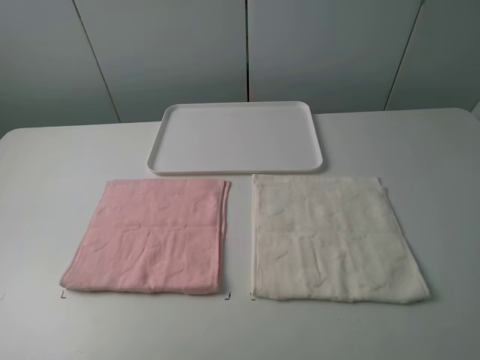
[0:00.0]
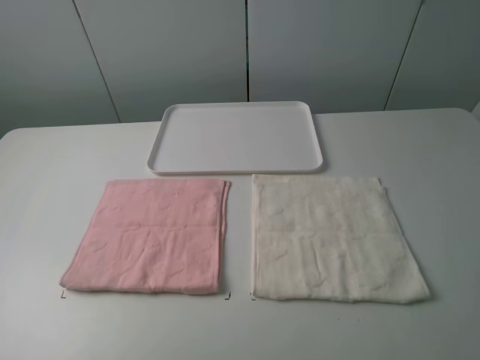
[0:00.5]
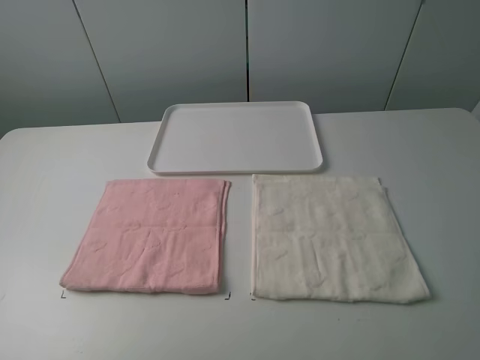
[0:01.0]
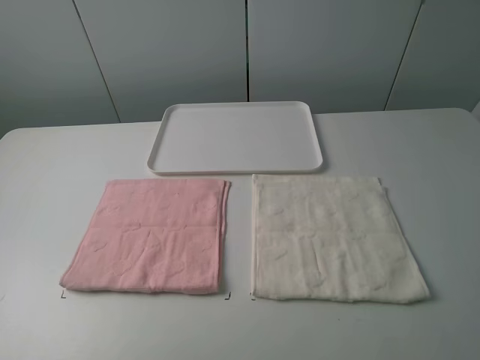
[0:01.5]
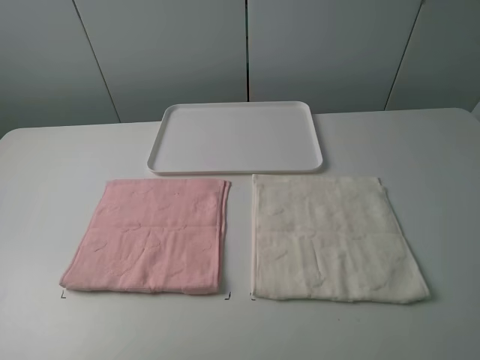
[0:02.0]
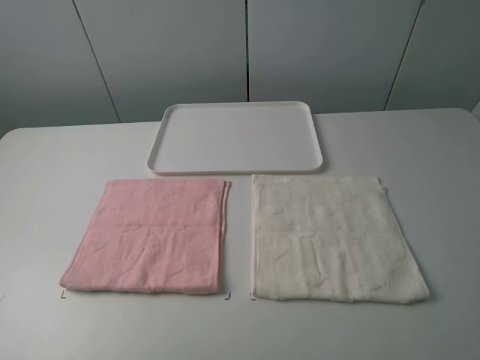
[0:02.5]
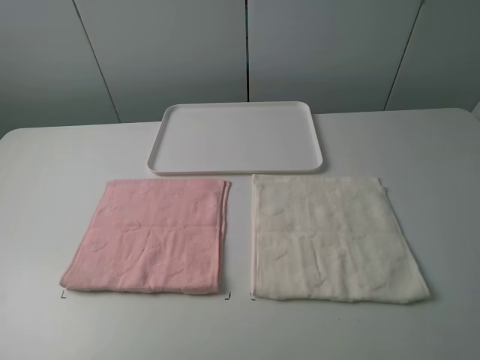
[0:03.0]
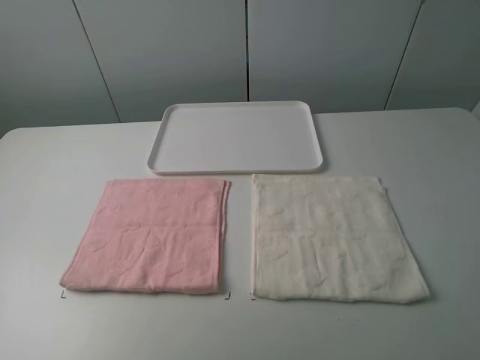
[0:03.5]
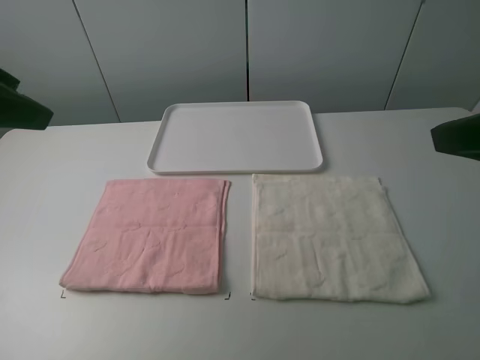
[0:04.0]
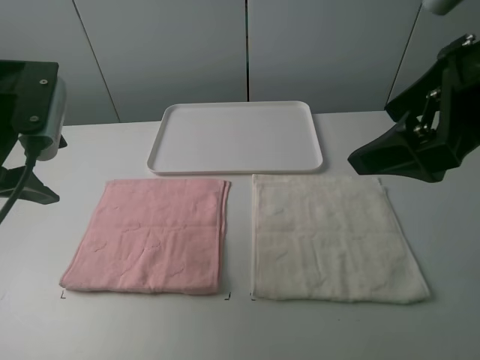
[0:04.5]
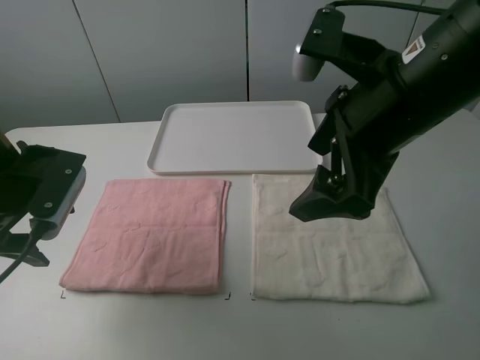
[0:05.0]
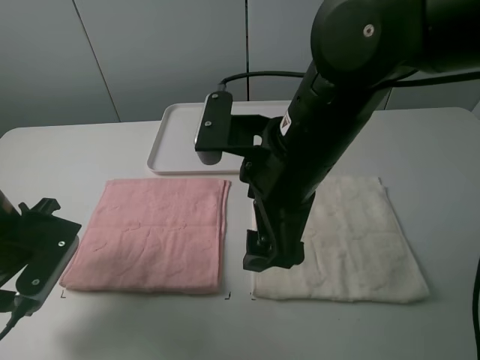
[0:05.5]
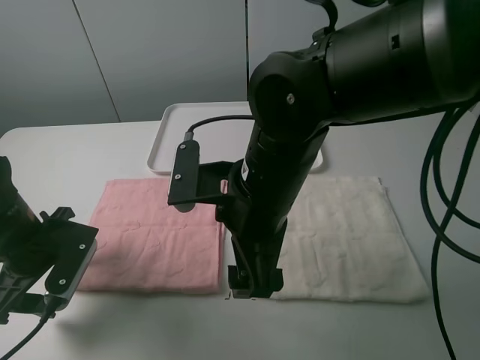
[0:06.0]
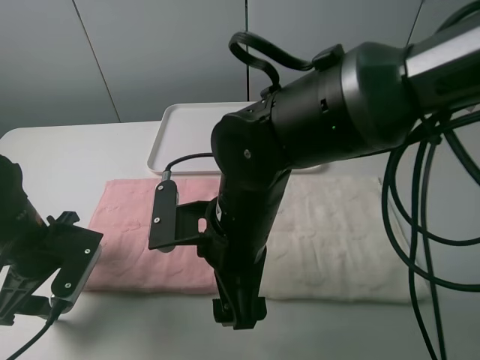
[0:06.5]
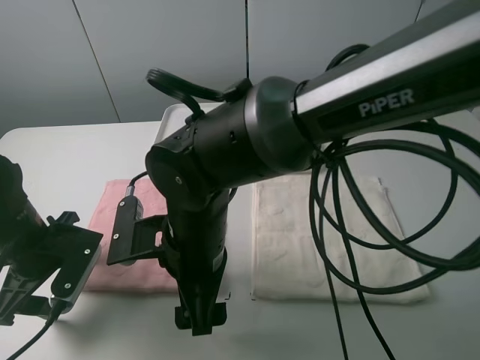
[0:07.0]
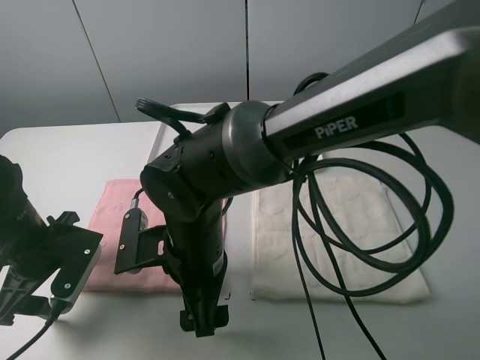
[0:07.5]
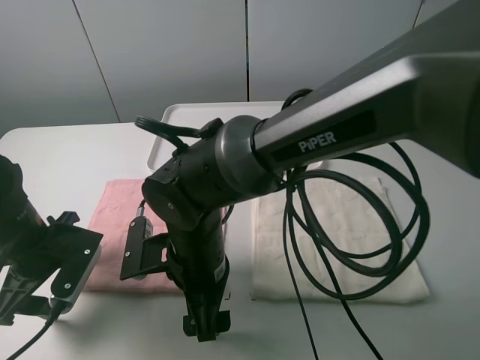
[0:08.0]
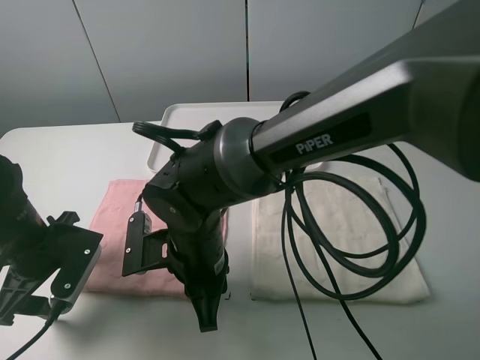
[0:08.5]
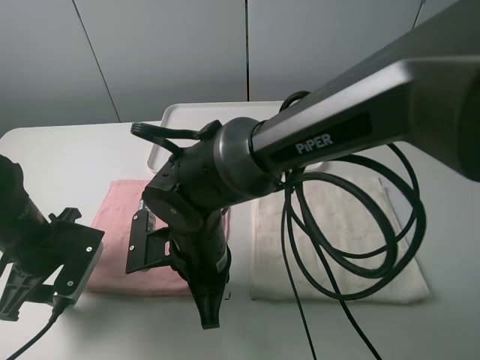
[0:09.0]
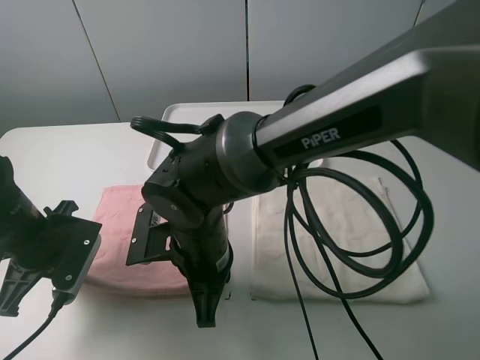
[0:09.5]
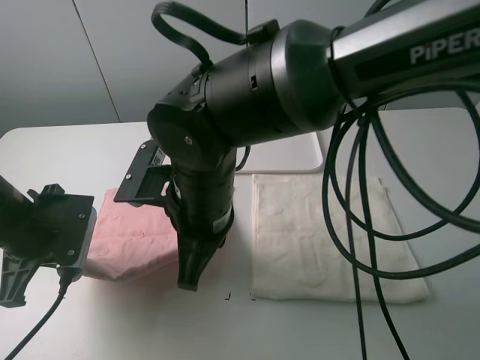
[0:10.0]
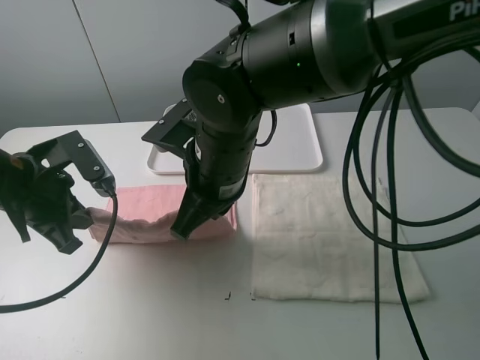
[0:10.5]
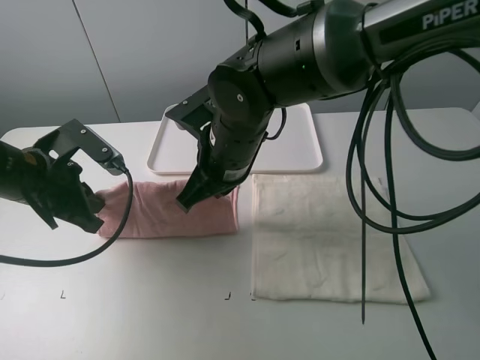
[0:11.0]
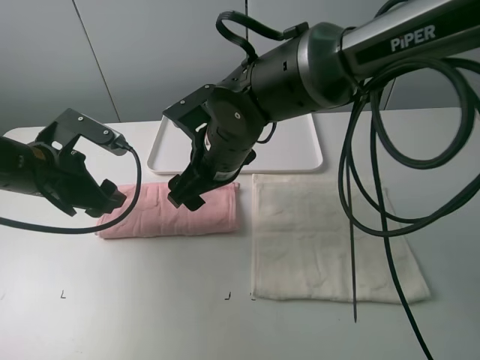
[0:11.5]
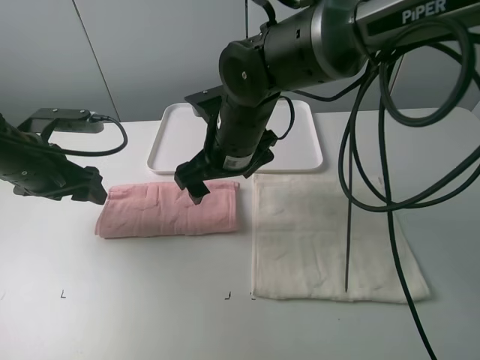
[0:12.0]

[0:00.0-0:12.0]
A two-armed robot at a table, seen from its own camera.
Task of the whole recording: fold one of the towels by two grippers and place it on the tray,then fold another towel by two grippers and place it on the folded towel.
Step, 0:00.0 to 0:09.0: Grasp the pink towel with the left gripper.
Step, 0:09.5 to 0:11.5: Fold the pink towel upwards with the left gripper.
0:00.0 to 0:02.0: Both grippers stay about where they are.
0:02.0 to 0:04.0: The right gripper is displaced forward by about 15 cm; the left gripper moves forward, roughly 20 cm.
0:04.0 to 0:06.0: The left gripper heads downward, covering approximately 25 cm, while the right gripper is displaced to the left and downward by about 25 cm.
0:06.0 to 0:08.0: The right gripper shifts about 10 cm downward and to the left.
0:08.0 to 0:10.0: The right gripper is displaced upward by approximately 10 cm, and closes. Meanwhile the left gripper closes up.
0:10.0 to 0:12.0: Both grippers travel together forward, approximately 10 cm. The left gripper opens its fingers, while the right gripper opens.

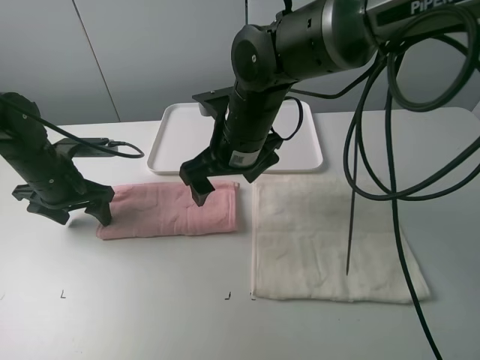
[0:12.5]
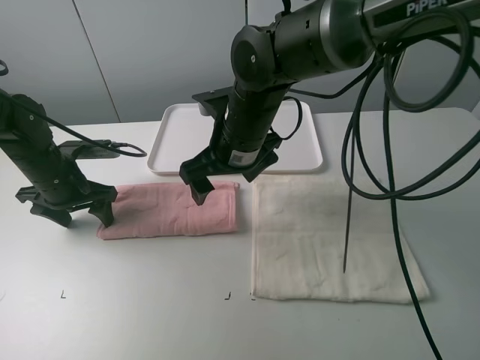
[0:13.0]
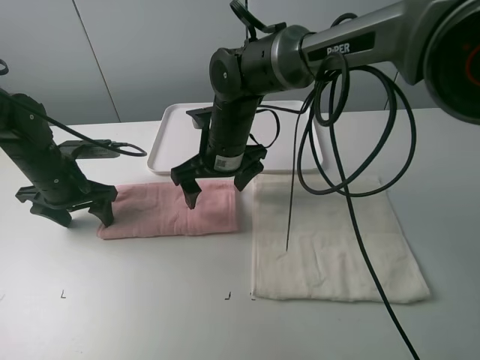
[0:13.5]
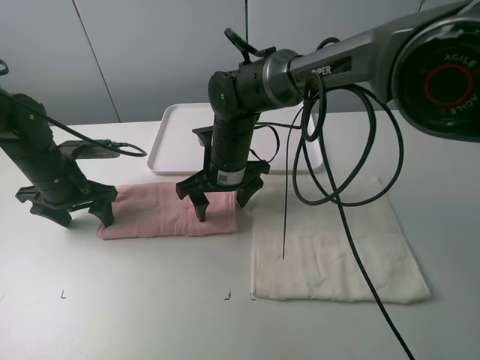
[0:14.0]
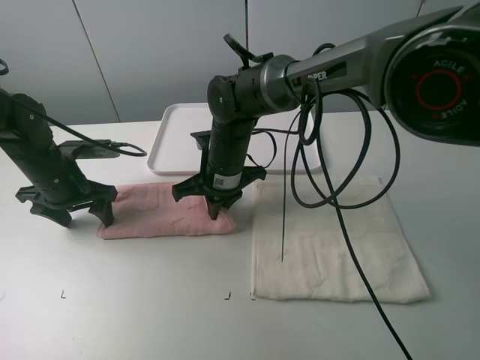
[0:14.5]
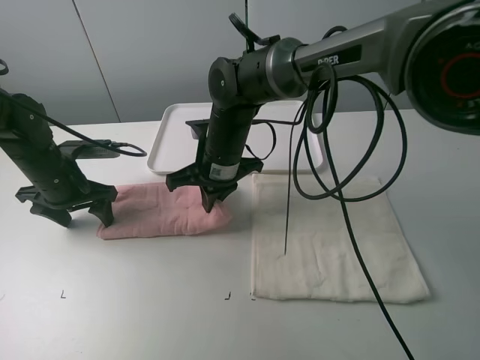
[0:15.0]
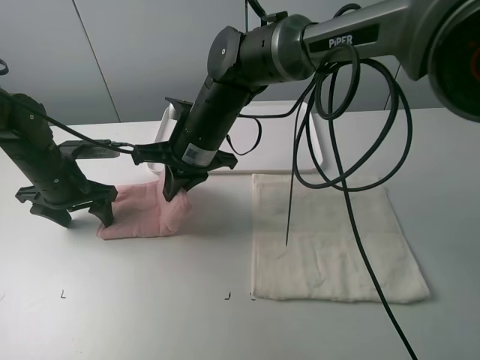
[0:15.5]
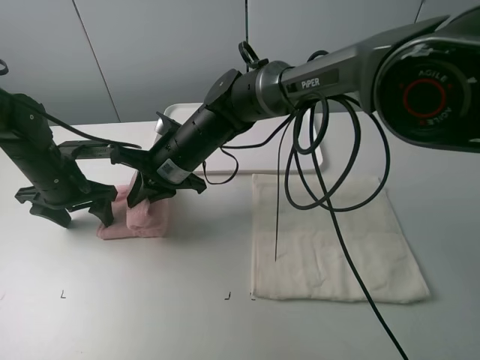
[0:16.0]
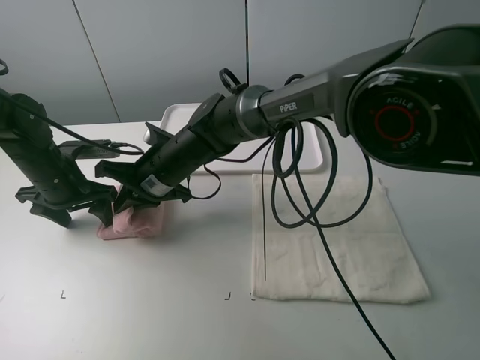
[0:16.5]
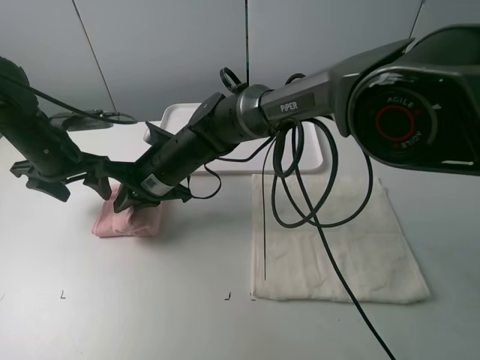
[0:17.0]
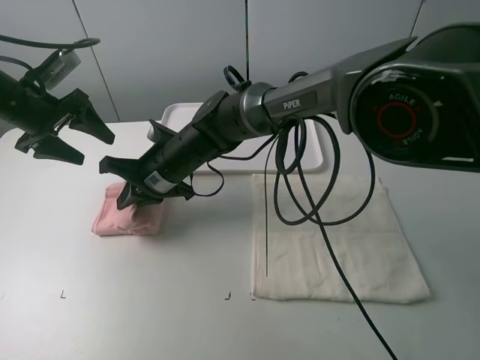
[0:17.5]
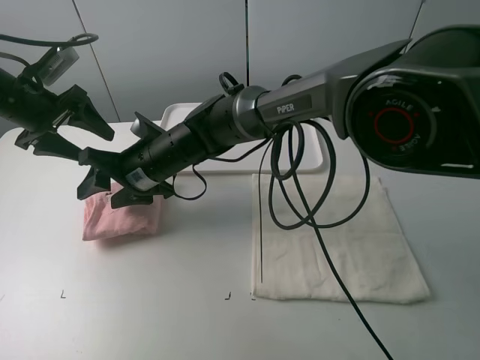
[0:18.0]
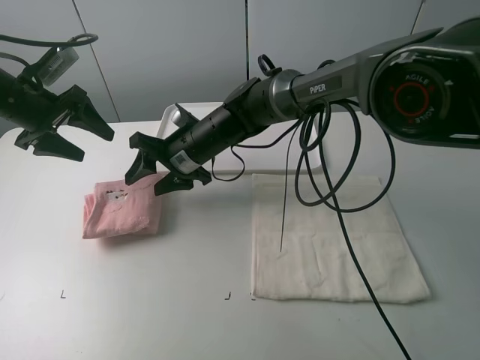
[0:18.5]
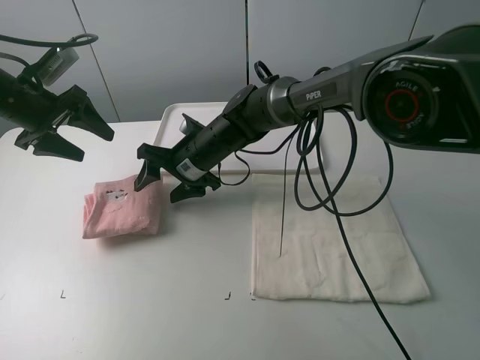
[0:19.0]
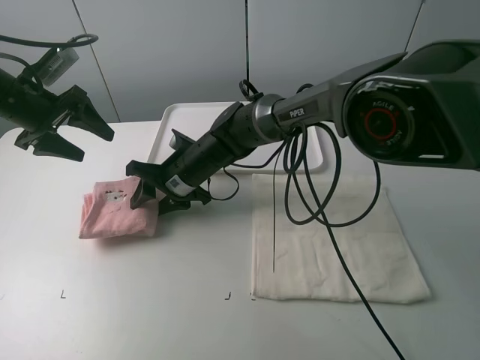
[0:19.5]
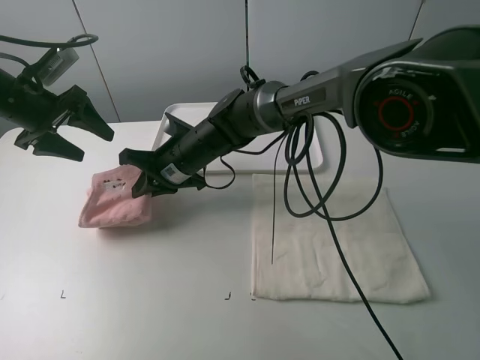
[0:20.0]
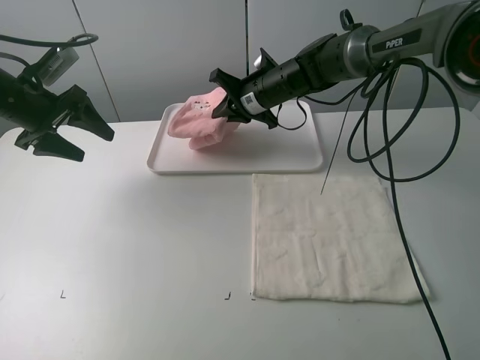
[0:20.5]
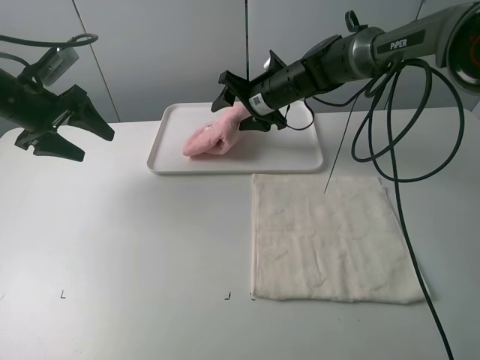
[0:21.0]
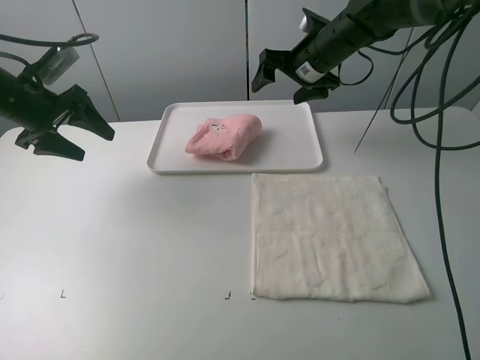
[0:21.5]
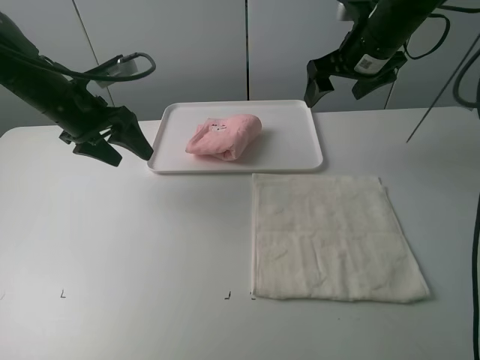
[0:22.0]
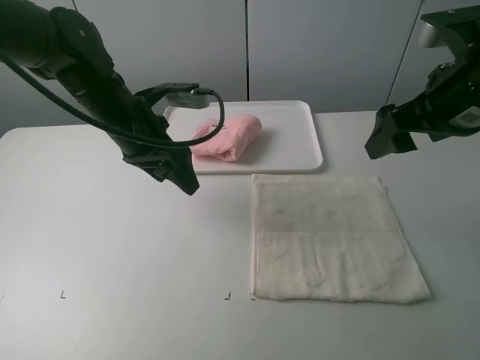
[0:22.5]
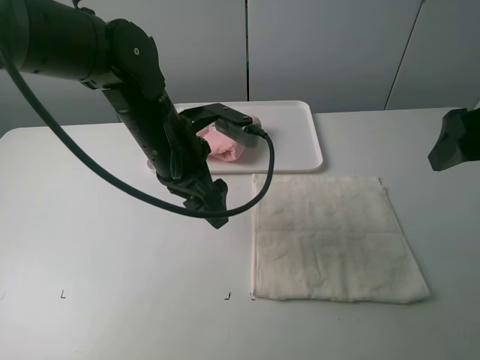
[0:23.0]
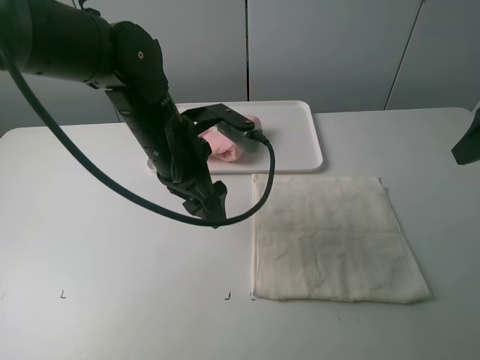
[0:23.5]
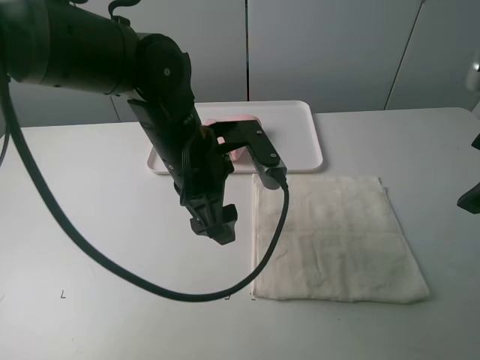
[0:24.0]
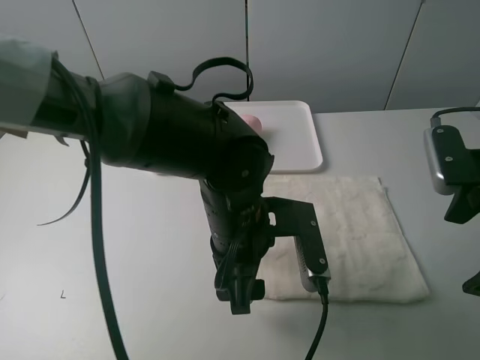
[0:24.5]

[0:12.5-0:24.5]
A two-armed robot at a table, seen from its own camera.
Task of the whole recording: fold one of the towels by two grippers and place it on the tray,then fold another towel by two grippers and place it on the folded towel.
Step, 0:13.0 to 0:14.5: Grasp the pink towel with the right gripper.
Step, 0:15.0 to 0:18.0: Fold the pink towel from right to left with right gripper.
Step, 0:18.5 to 0:19.5: Grasp the pink towel with the right gripper.
Step, 0:20.0 to 0:21.0: Move the pink towel to the plate with the right gripper.
0:12.5 to 0:14.5: The right gripper travels downward by some 10 cm, and closes.
0:14.5 to 0:16.5: The right gripper is displaced to the left by some 10 cm.
0:16.5 to 0:18.5: The left gripper moves upward, approximately 10 cm, while the right gripper moves about 5 cm, and opens up.
0:18.5 to 0:20.5: The right gripper goes about 15 cm to the right and forward, and closes up.
0:20.5 to 0:22.5: The left gripper travels to the right by approximately 20 cm. Meanwhile the right gripper travels backward, to the right and upward by approximately 30 cm, and opens its fingers.
0:22.5 to 0:24.5: The left gripper travels to the right and backward by some 20 cm, while the right gripper moves downward and backward, roughly 10 cm.

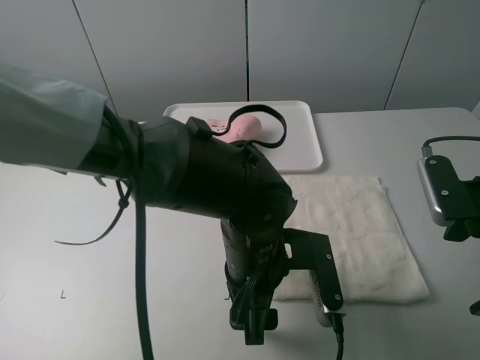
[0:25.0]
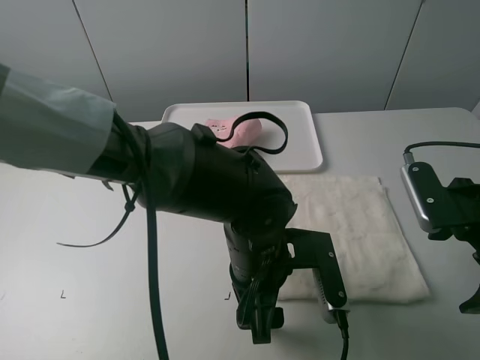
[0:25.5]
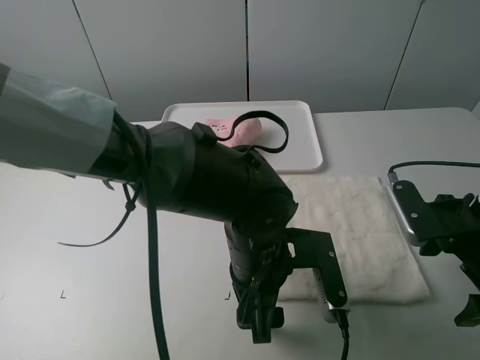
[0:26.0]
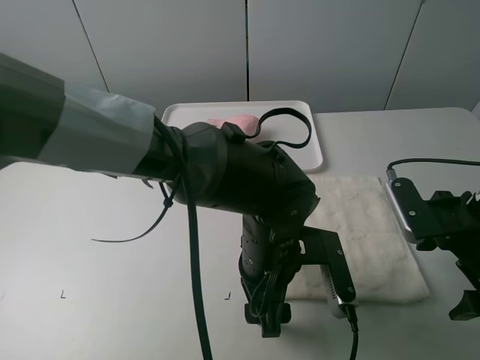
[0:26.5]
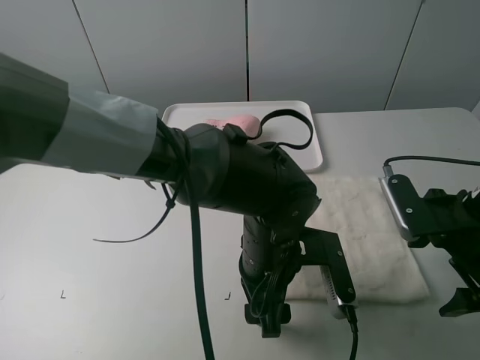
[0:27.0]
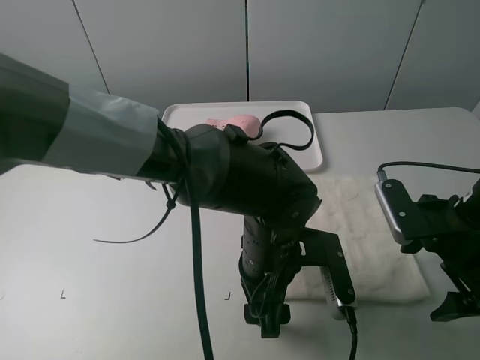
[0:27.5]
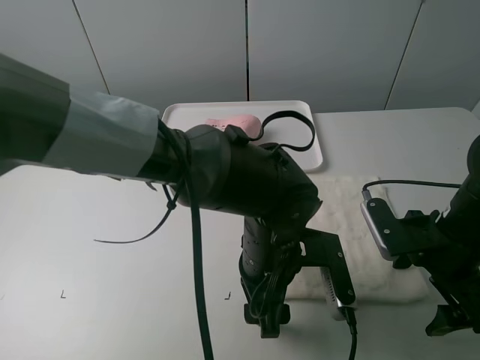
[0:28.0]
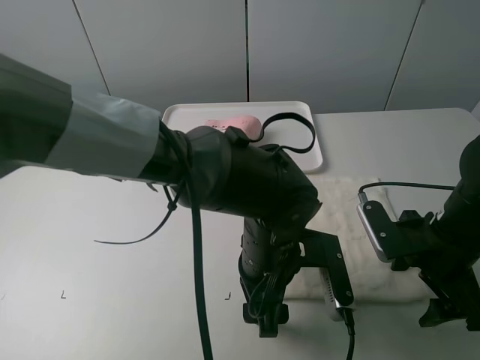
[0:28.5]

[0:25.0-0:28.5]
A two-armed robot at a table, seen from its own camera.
Task of the whole recording: fold one of the towels by two grippers and place it on the tray,then fold another towel by two grippers and place it on the folded towel.
0:27.0 to 0:28.5: The grippers make only small movements.
